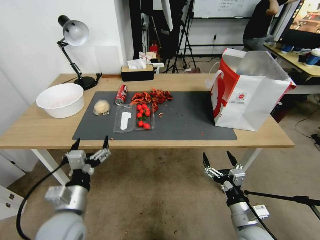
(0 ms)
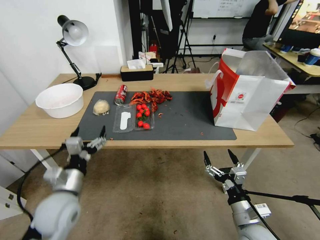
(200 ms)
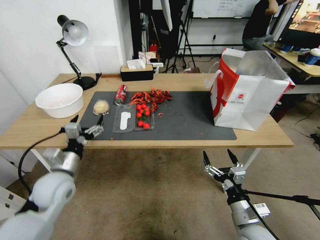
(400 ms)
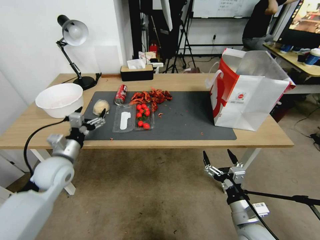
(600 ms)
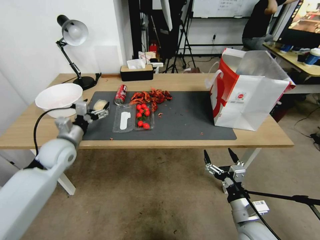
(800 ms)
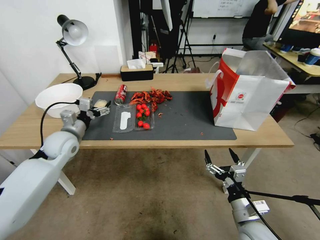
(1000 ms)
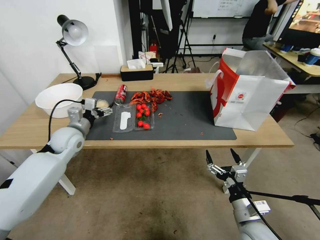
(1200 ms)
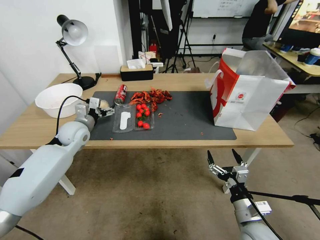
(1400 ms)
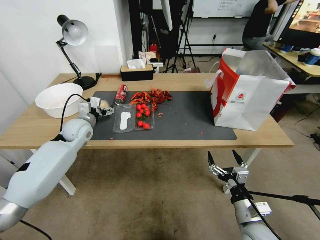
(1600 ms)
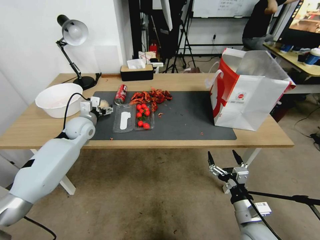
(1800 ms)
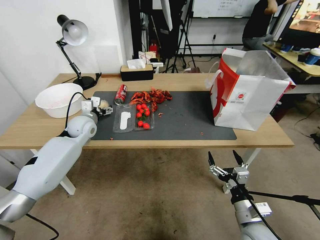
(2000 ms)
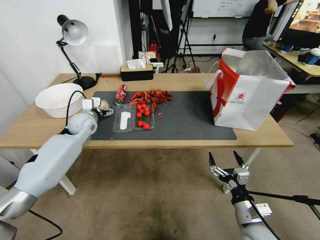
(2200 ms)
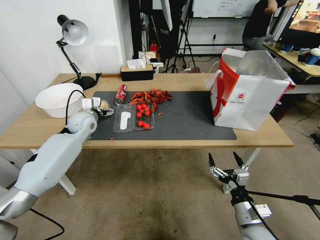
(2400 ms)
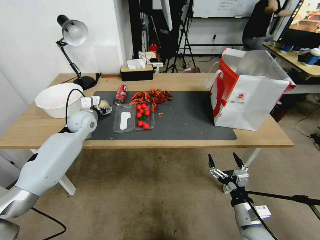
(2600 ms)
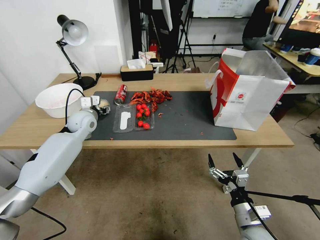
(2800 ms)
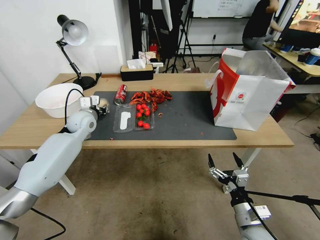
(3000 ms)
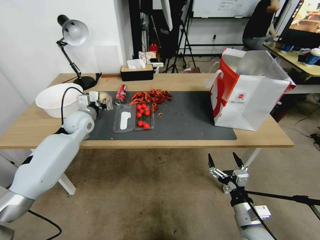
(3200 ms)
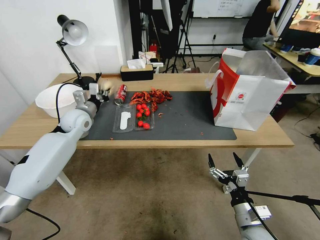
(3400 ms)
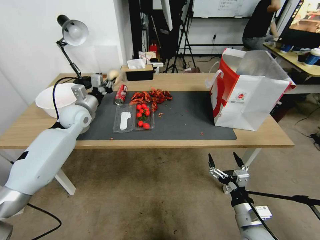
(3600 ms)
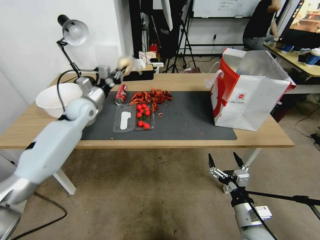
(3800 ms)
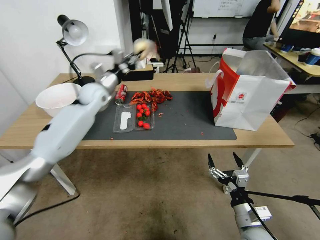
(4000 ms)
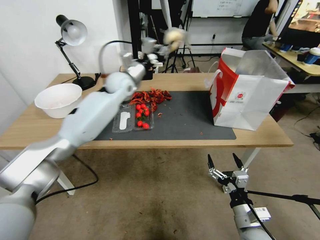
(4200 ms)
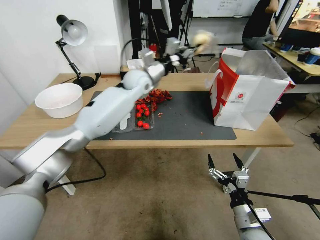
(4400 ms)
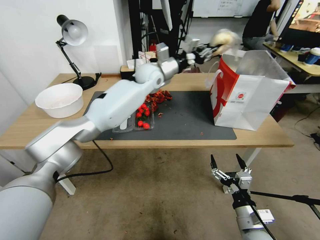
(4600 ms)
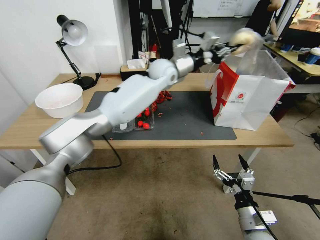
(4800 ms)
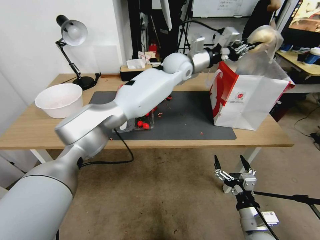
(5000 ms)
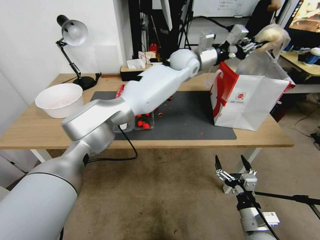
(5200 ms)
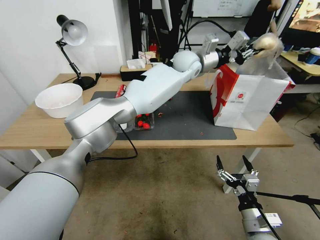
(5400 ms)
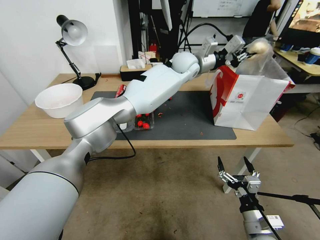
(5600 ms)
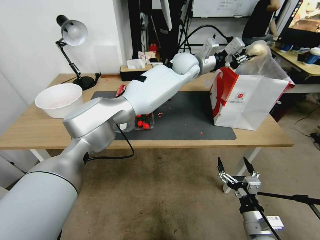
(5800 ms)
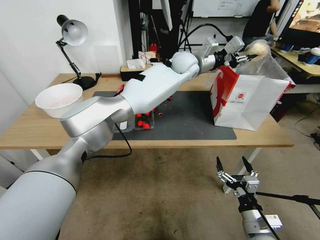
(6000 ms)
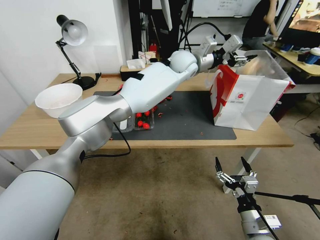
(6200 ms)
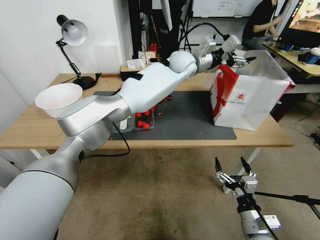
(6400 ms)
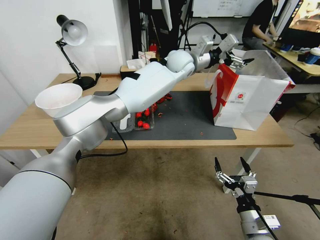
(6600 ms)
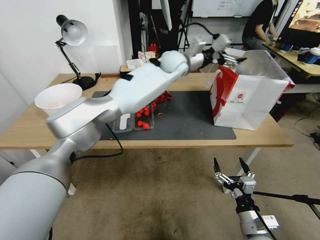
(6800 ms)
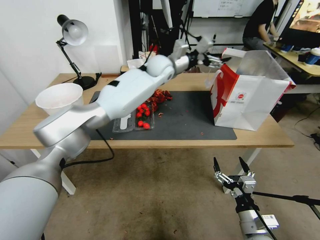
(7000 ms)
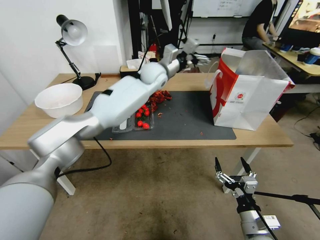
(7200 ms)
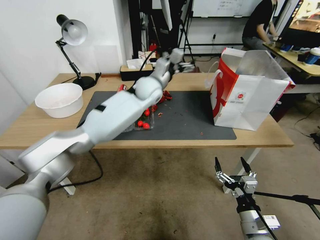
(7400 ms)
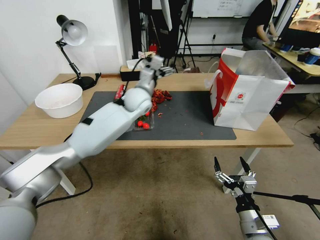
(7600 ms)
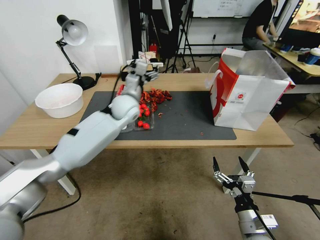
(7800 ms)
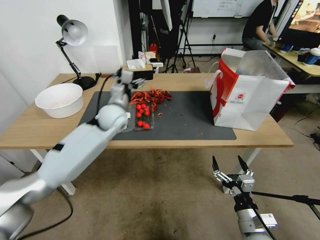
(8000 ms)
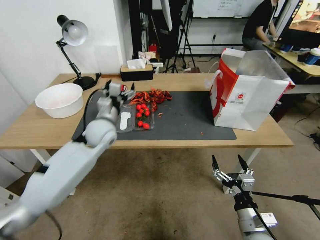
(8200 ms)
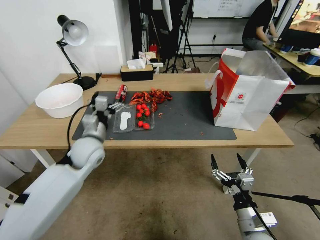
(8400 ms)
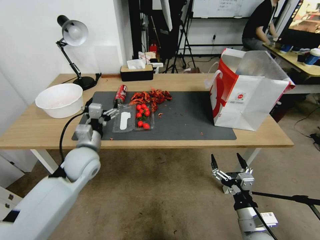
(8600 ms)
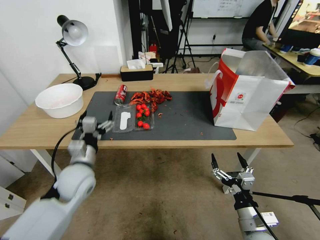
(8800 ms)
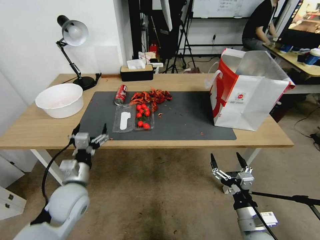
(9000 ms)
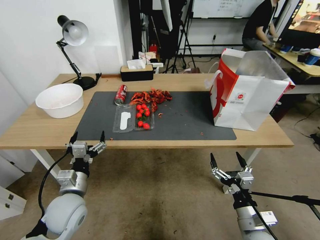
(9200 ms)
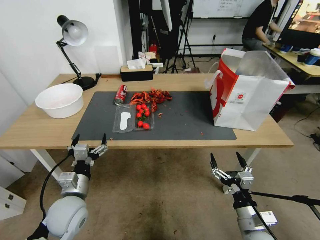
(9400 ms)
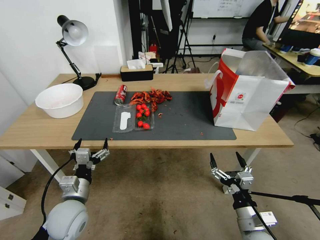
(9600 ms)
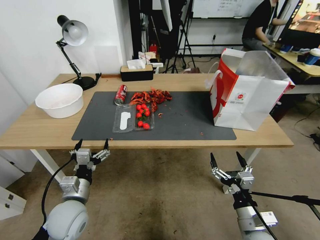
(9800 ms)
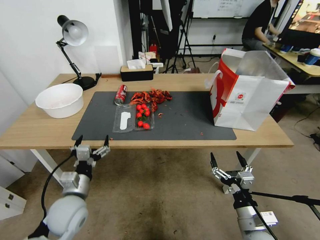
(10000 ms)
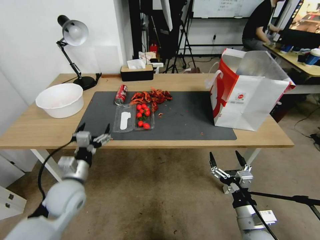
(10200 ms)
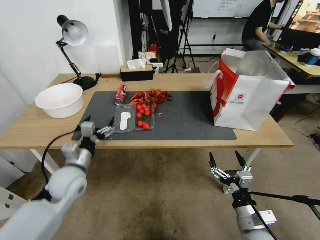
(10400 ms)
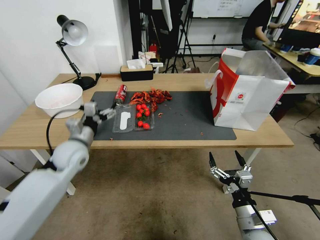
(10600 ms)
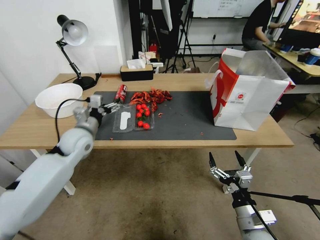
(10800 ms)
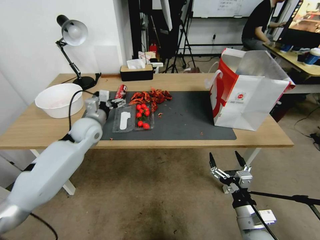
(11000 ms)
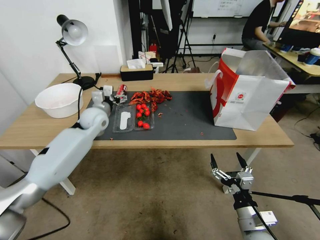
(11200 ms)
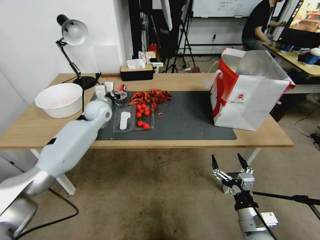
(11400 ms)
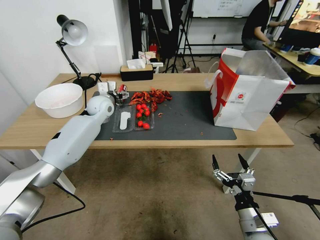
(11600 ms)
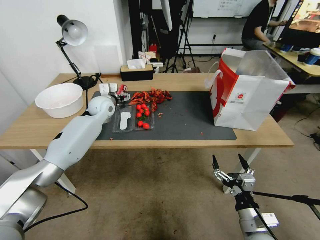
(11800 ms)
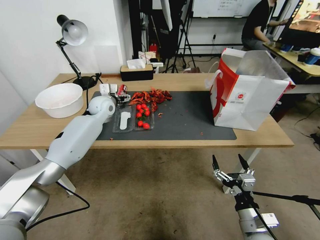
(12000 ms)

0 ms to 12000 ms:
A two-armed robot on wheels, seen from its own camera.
0 ms to 1600 ms: The left gripper goes some 30 cm forward.
1600 ms to 3000 ms: The left gripper closes up.
3000 ms to 4400 ms: The left gripper is displaced upward by some 10 cm, and closes.
4400 ms to 6000 ms: The left gripper heads to the right, covering some 35 cm.
6000 ms to 7600 ms: The left gripper moves to the left and downward, about 15 cm, and opens its fingers.
7600 ms to 9000 ms: The left gripper moves backward, to the left and downward, approximately 40 cm.
9000 ms to 10400 ms: There are only small adjustments of the grippers.
10400 ms to 12000 ms: The left gripper is displaced forward by some 30 cm.

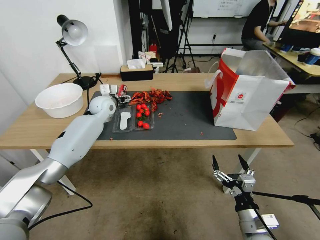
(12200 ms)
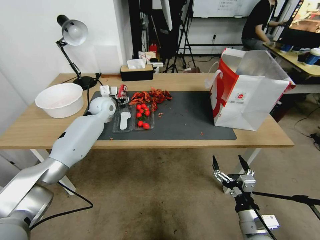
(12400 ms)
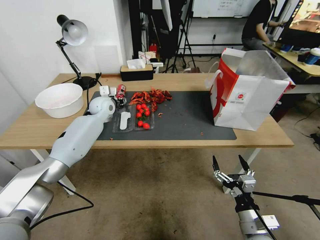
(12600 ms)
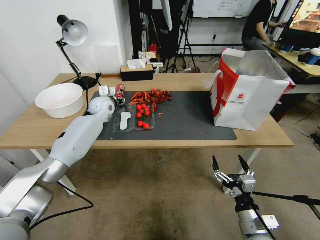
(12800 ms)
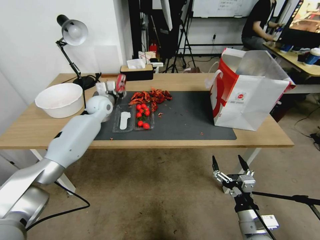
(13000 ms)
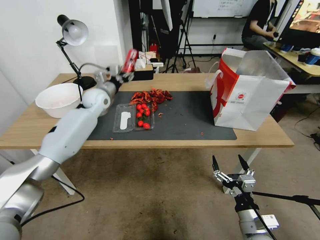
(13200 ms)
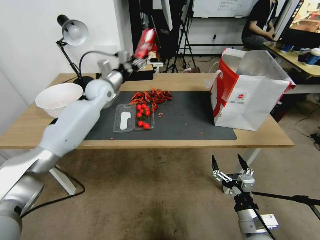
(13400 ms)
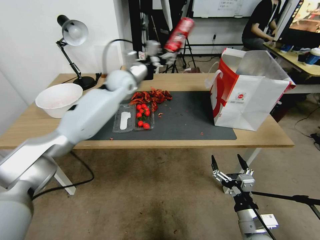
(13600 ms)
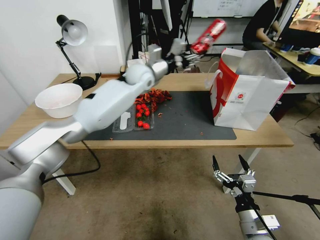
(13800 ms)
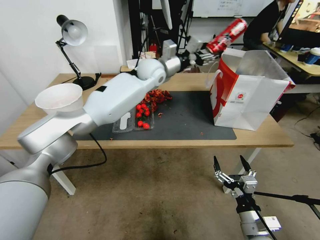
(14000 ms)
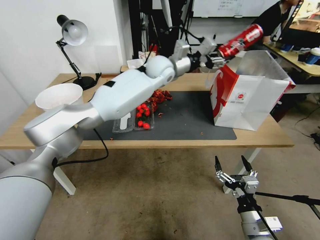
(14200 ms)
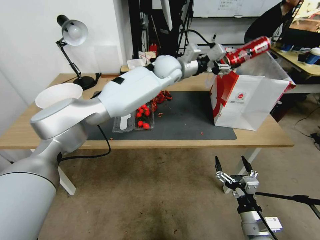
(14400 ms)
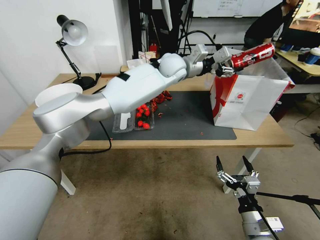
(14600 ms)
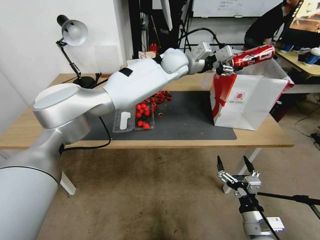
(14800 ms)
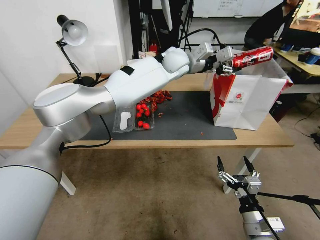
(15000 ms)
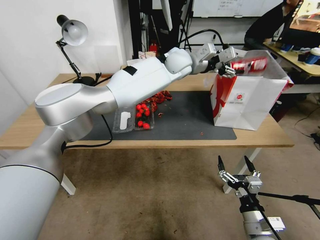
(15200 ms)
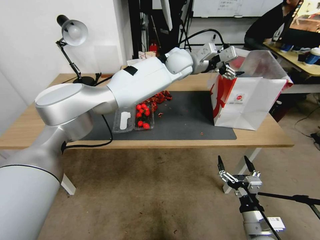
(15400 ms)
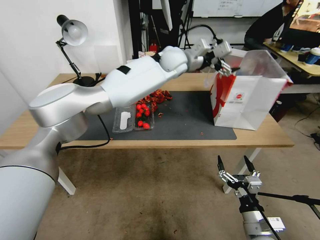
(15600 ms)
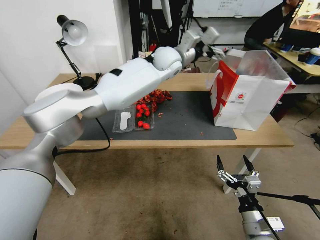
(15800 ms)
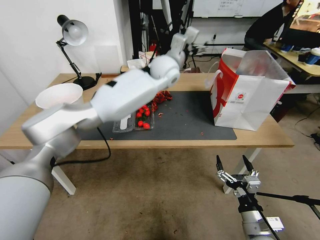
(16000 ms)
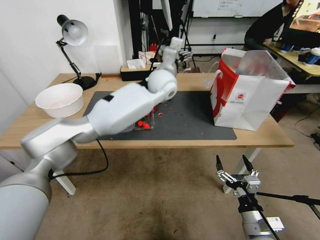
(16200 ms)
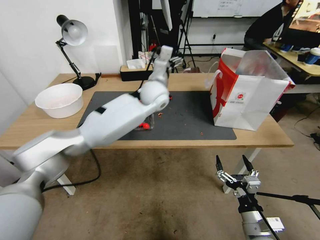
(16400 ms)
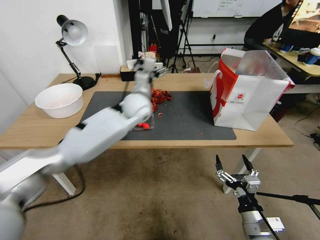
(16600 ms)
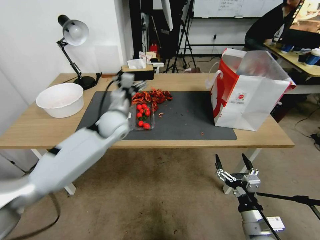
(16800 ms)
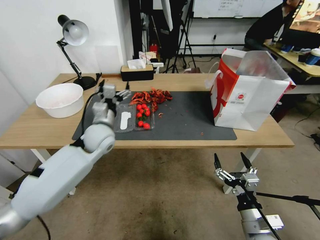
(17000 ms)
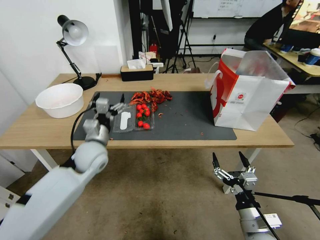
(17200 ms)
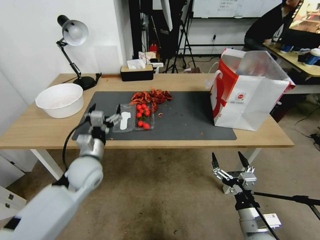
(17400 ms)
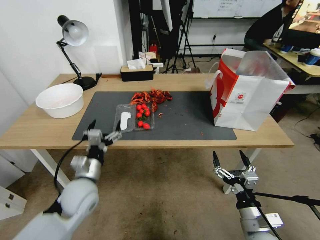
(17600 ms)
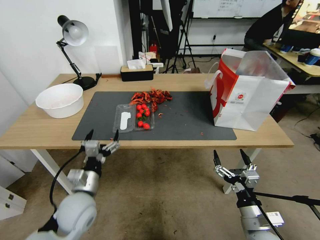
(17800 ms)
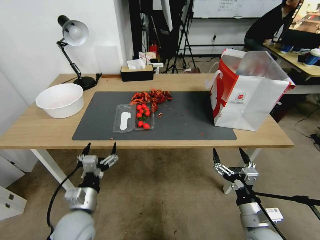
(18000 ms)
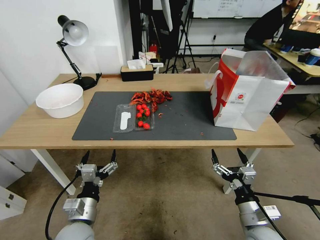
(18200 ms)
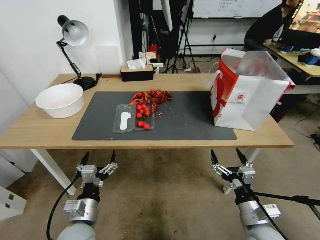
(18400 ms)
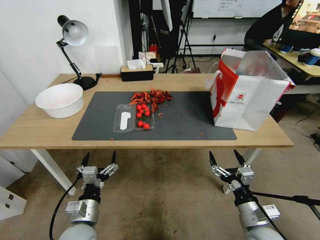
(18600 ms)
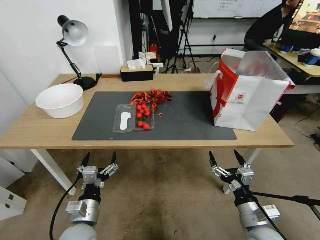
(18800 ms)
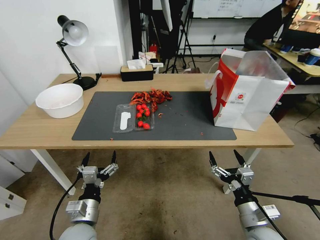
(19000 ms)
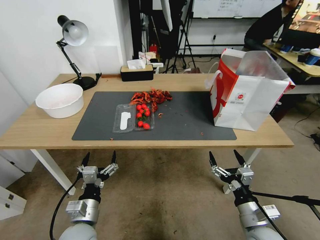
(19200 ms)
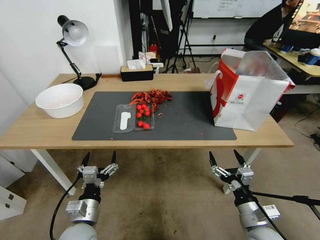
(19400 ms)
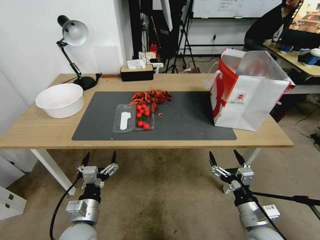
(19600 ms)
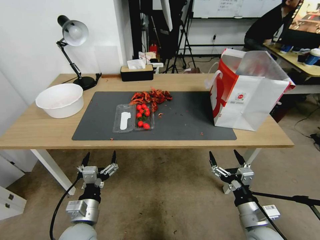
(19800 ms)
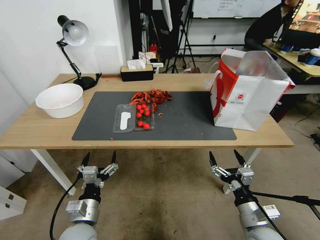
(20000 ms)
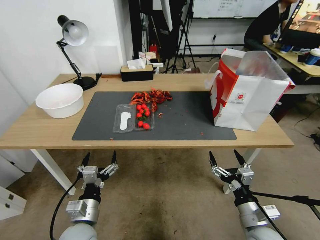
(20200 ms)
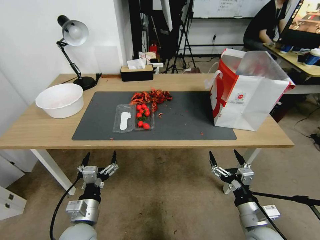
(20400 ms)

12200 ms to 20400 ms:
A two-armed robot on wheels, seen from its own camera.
12200 ms to 13800 ms: The left gripper moves to the right and upward, approximately 20 cm, and closes up.
13800 ms to 15400 ms: The left gripper goes about 10 cm to the right, and opens.
15400 ms to 17200 ms: The left gripper goes about 40 cm to the left, backward and downward.
17200 ms to 18800 ms: The left gripper is displaced backward and downward by roughly 25 cm.
18800 ms to 20400 ms: Neither gripper changes place.

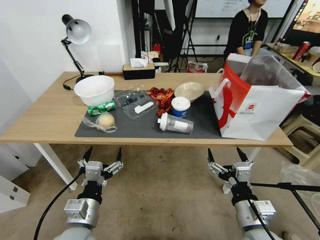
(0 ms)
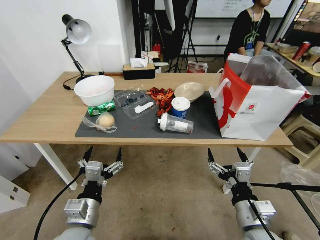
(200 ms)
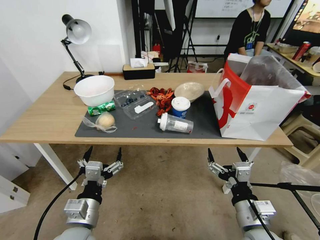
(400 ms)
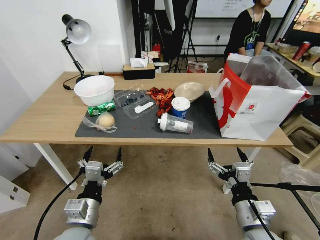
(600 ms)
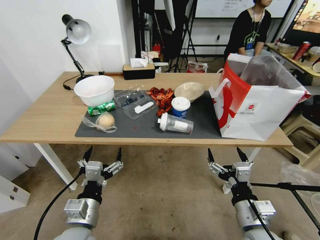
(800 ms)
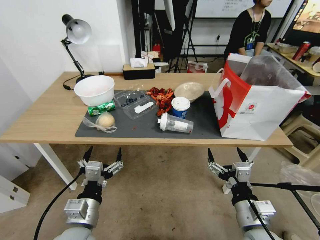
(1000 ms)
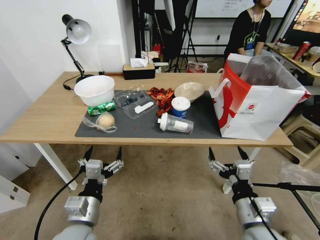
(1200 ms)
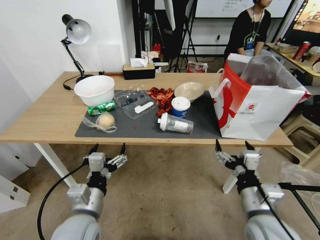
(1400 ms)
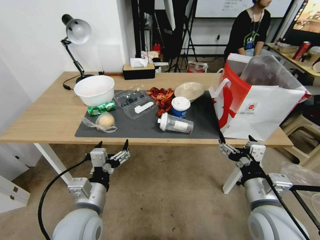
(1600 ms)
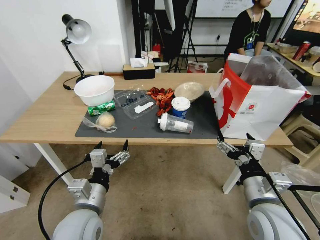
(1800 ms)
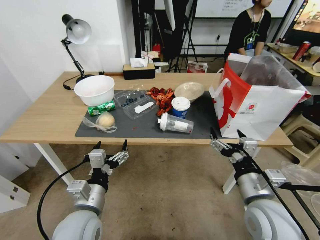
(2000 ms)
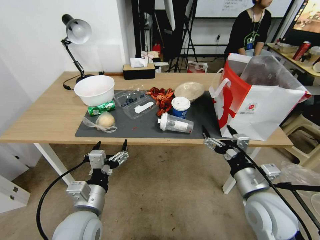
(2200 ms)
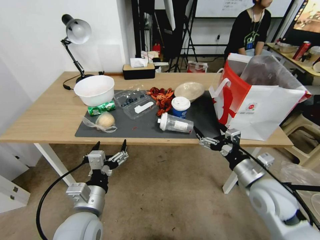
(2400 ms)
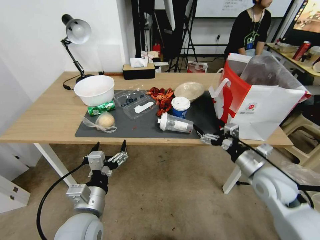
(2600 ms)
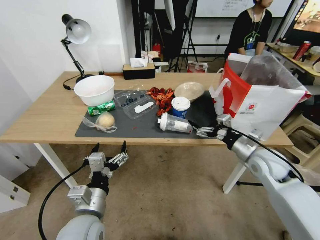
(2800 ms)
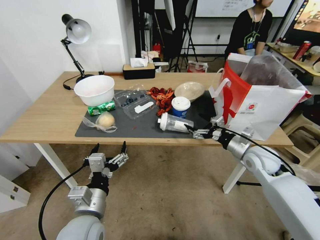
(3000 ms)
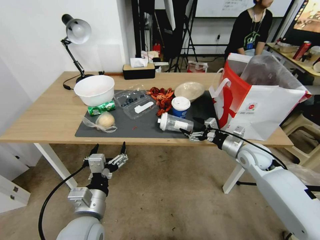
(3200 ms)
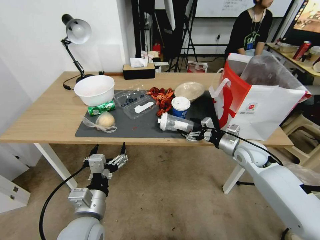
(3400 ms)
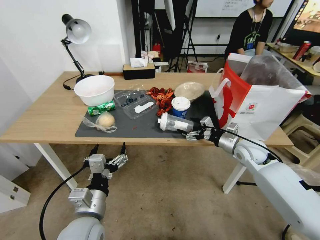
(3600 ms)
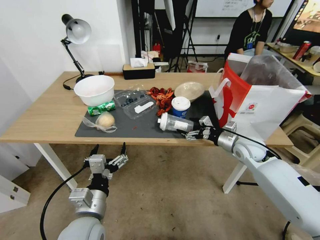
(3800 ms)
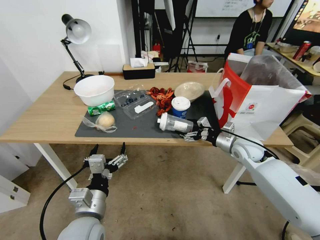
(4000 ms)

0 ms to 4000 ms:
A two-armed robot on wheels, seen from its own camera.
1400 ms to 2600 ms: The right gripper travels forward and to the right by some 15 cm.
2600 ms to 4000 ms: The right gripper goes about 15 cm forward.
